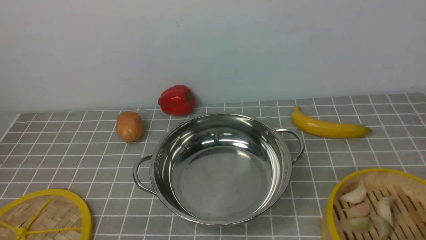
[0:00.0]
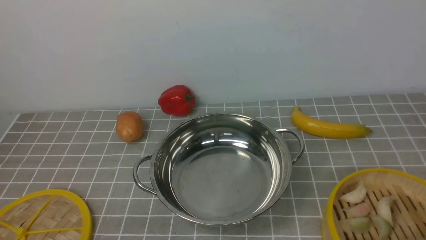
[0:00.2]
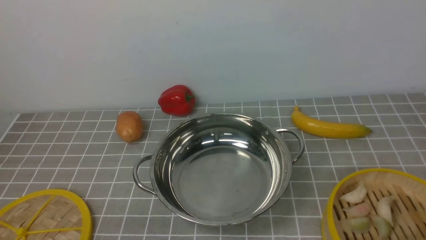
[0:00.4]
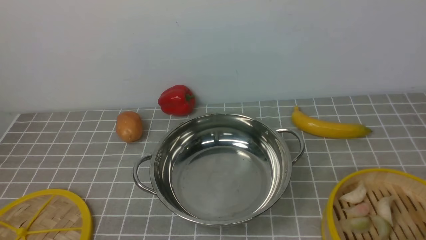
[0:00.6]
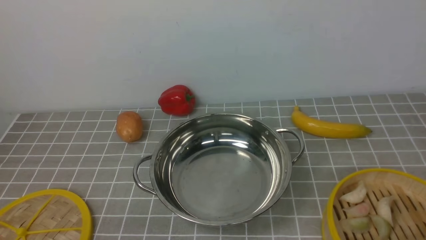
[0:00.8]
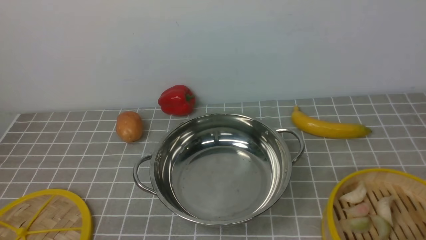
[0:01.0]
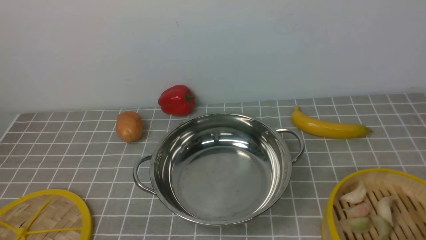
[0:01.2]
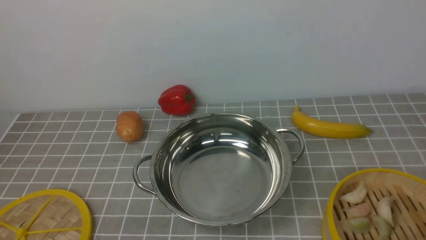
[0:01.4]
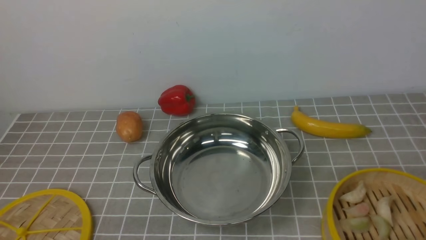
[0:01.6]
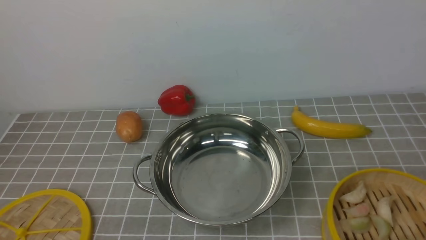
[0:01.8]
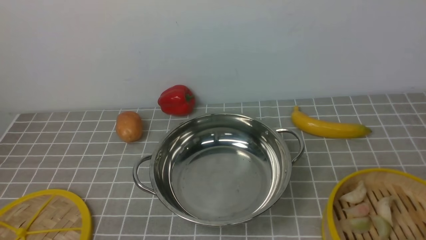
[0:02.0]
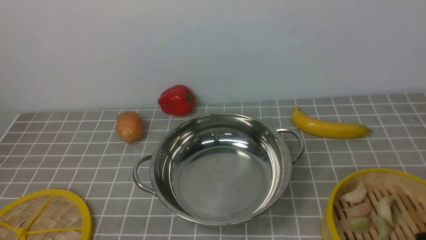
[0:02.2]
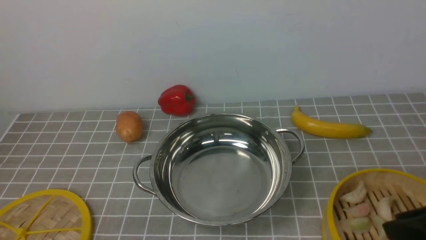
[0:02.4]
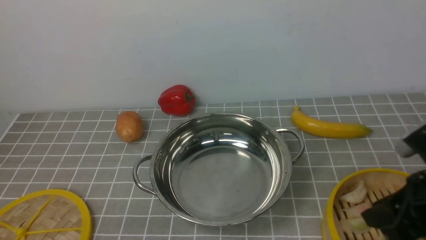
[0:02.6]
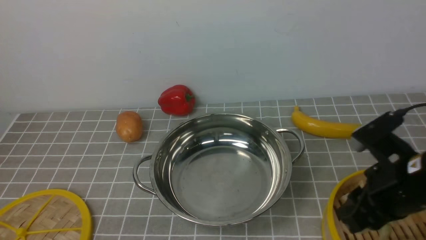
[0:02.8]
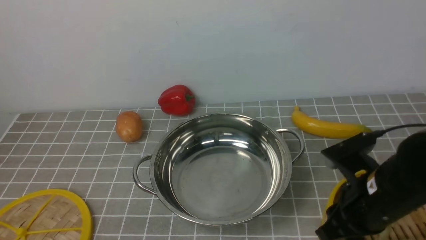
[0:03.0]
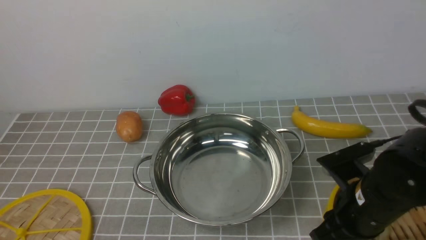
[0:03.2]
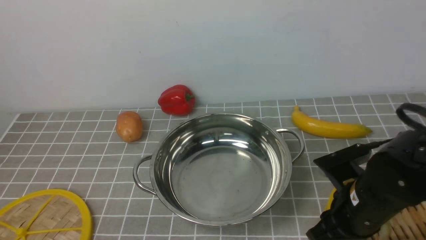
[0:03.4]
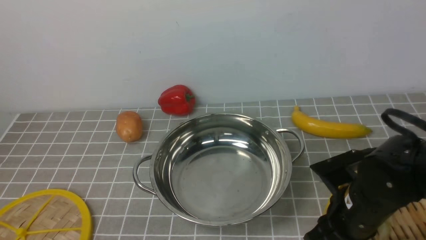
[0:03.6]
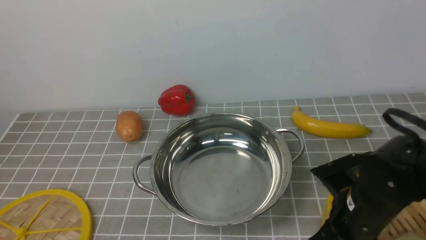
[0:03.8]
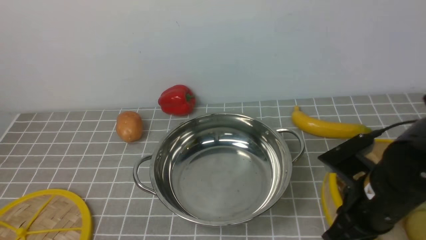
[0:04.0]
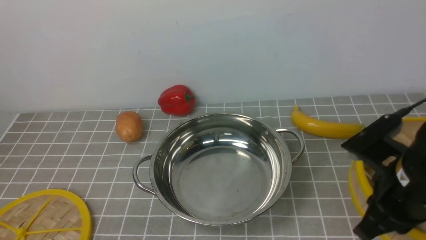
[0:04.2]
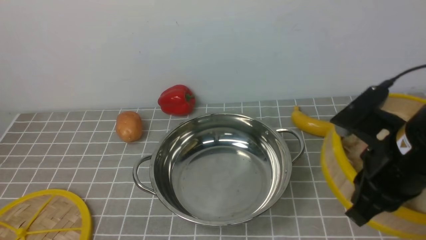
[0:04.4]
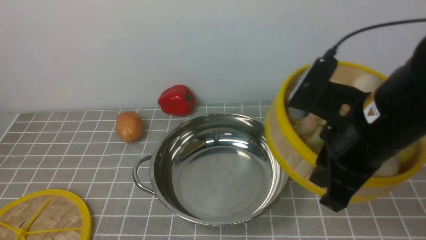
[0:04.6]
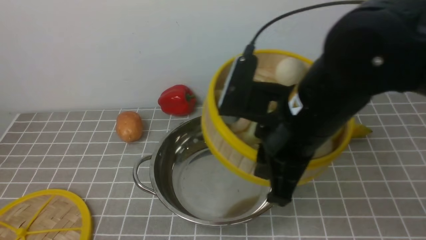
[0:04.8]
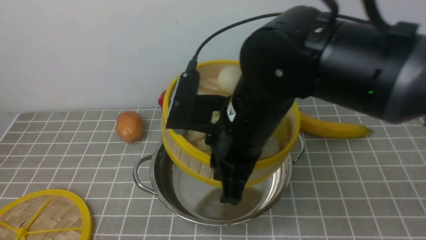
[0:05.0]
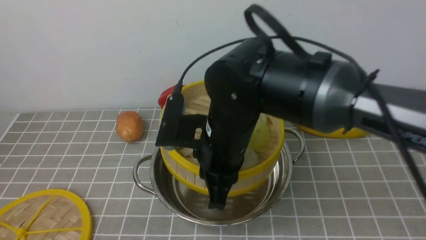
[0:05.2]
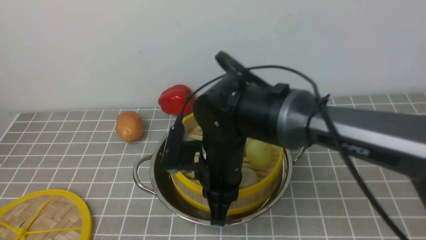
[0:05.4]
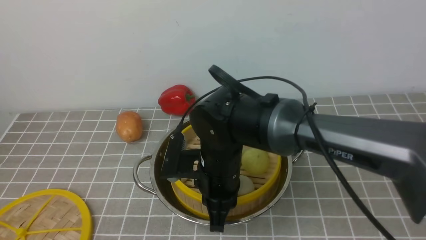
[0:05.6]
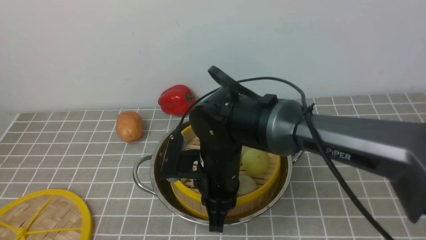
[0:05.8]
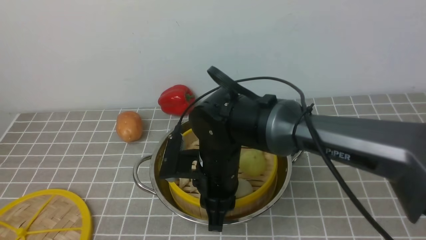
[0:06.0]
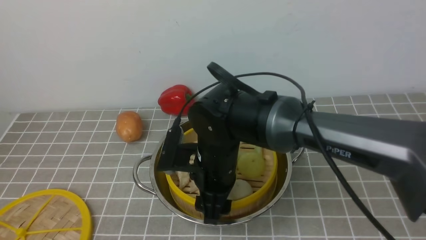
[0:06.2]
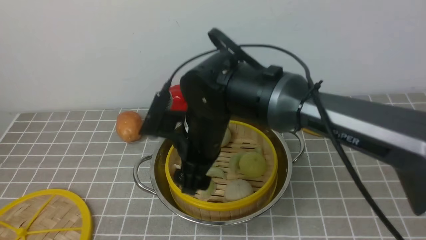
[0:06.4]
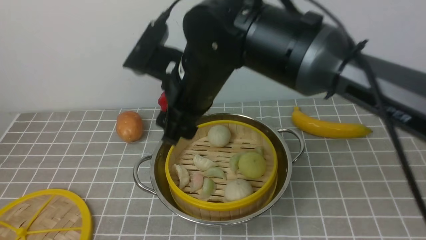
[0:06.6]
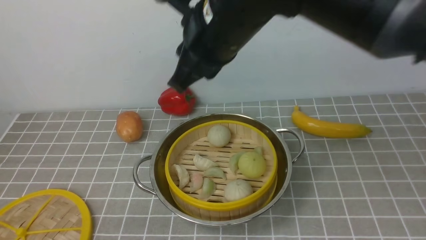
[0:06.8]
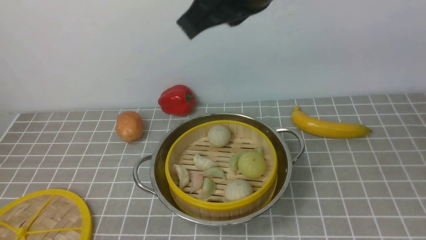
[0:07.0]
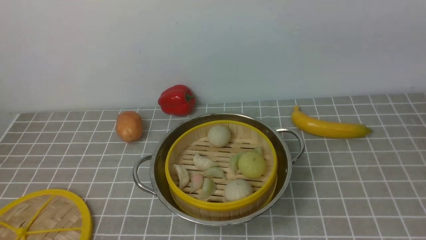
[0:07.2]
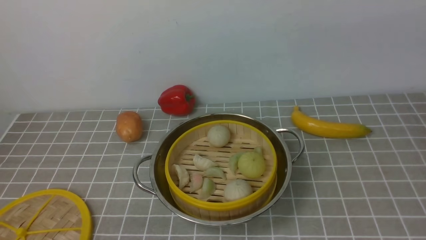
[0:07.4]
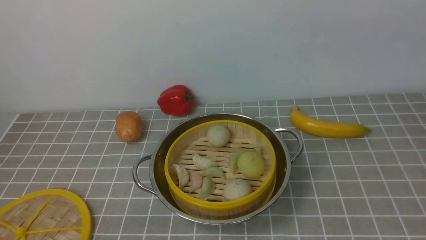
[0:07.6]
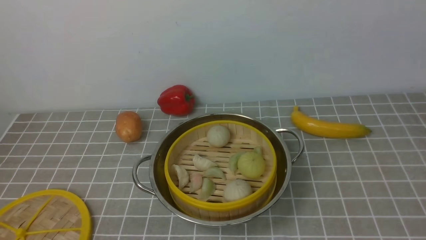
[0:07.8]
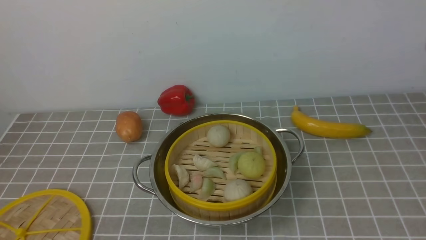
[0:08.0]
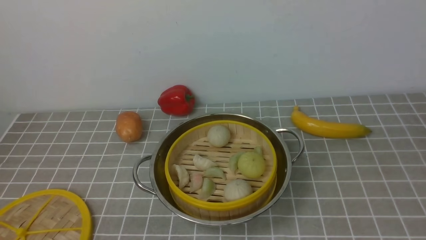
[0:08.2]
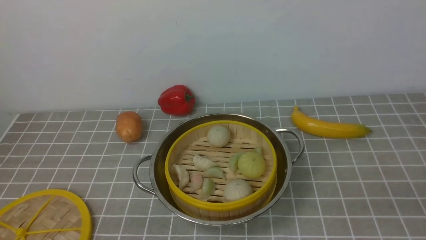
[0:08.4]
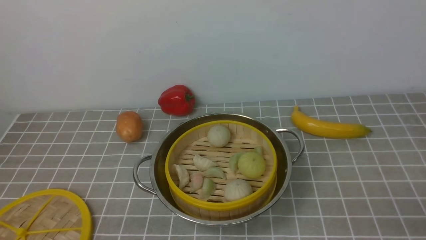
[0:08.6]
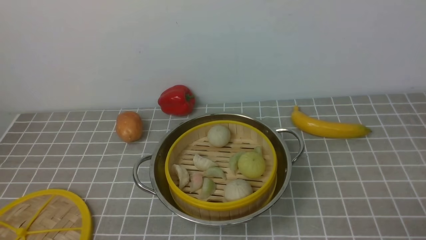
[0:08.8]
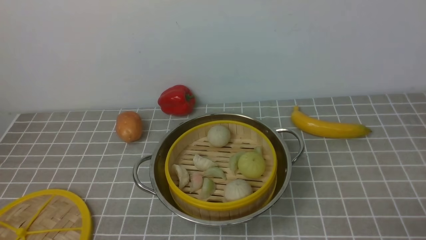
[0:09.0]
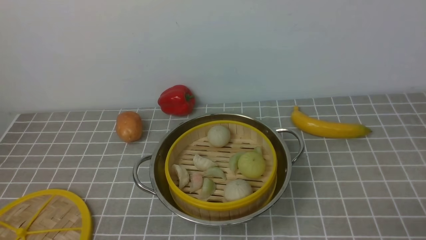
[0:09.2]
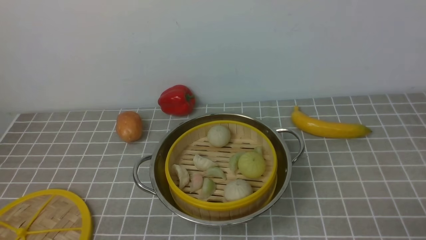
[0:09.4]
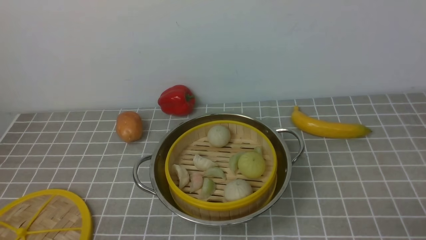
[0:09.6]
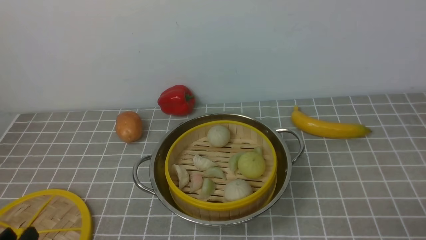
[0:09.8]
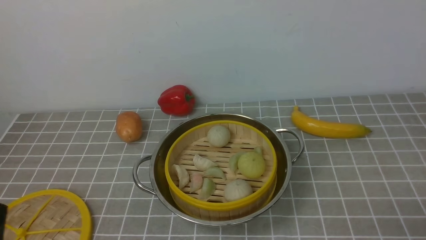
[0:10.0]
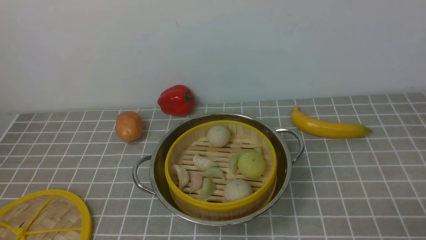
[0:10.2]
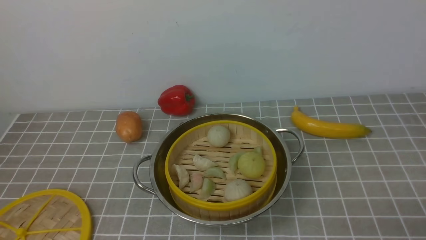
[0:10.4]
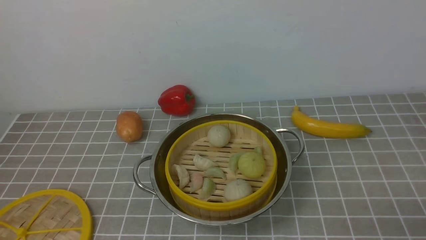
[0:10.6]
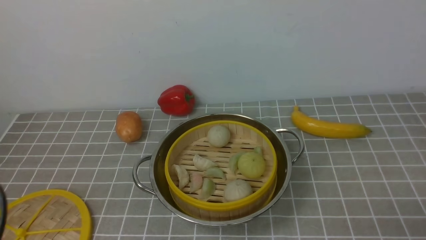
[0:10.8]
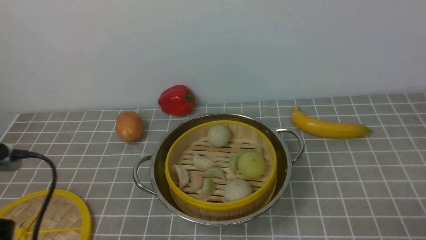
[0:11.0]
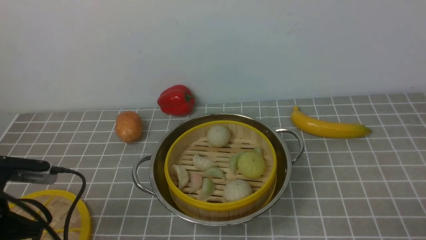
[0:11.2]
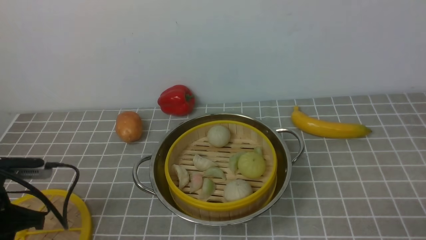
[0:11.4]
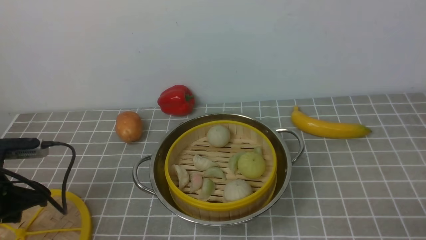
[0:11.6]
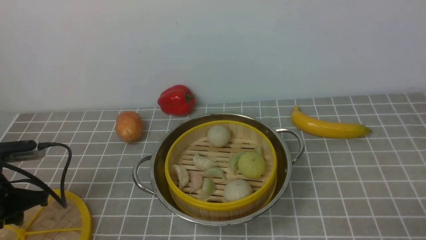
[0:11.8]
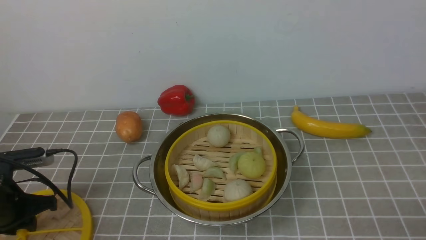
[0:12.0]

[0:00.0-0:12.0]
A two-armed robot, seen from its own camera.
Task of the whole recording: place the steamer in the pot on the grey tablecloth, and put the lid on the steamer.
Step, 0:00.0 to 0:03.8: use the right arm to lift the steamer closest to it.
Step, 0:04.0 to 0:06.2: use the right arm to put the steamer into the iron steamer pot in the middle.
0:01.6 to 0:03.0: The right gripper shifts approximately 20 cm forward and to the left.
0:03.0 to 0:04.4: The right gripper goes about 10 cm upward, and closes.
0:04.4 to 0:06.0: The right gripper is displaced to the left, downward and forward by roughly 25 cm, and opens up.
0:06.0 to 0:07.6: The right gripper is displaced upward and to the right by some 35 cm, and closes.
0:10.4 to 0:12.0: The left gripper heads forward, downward and to the left, covering roughly 25 cm.

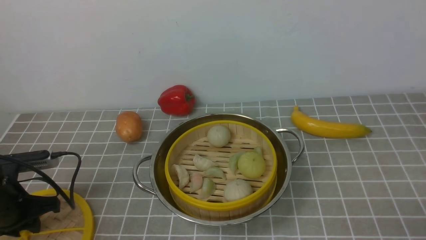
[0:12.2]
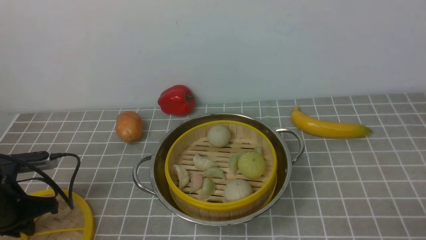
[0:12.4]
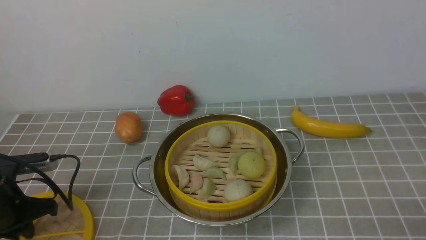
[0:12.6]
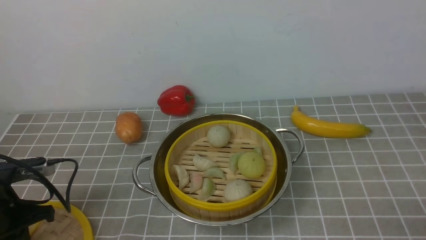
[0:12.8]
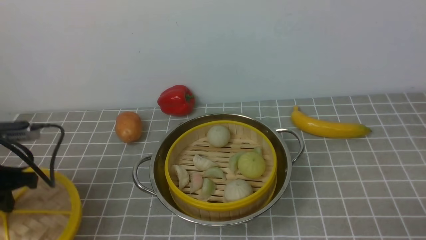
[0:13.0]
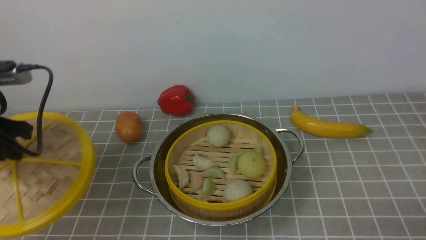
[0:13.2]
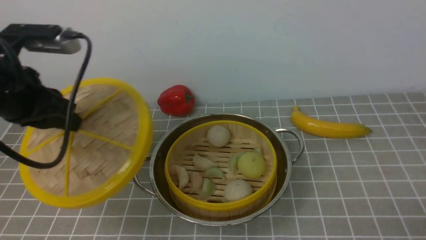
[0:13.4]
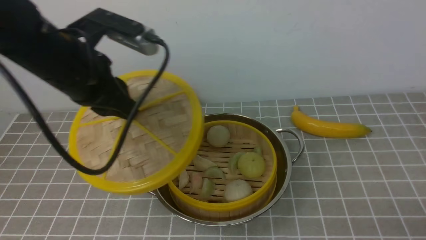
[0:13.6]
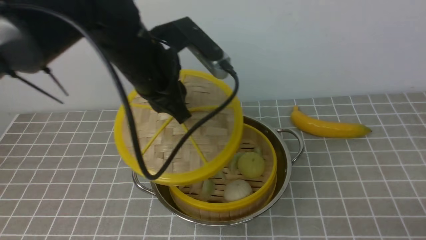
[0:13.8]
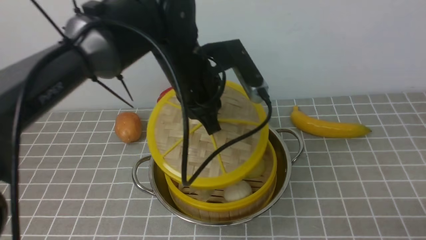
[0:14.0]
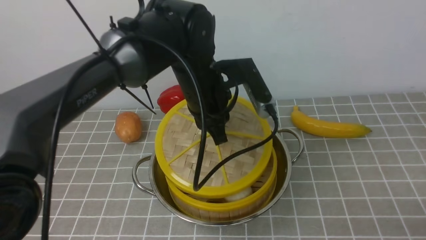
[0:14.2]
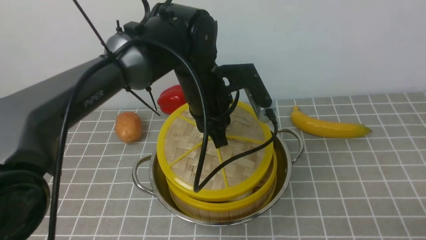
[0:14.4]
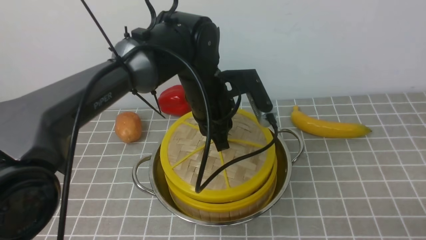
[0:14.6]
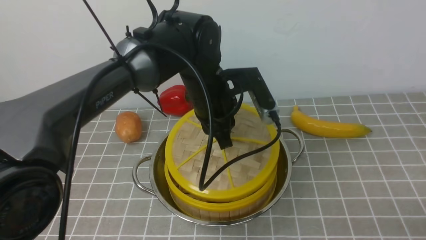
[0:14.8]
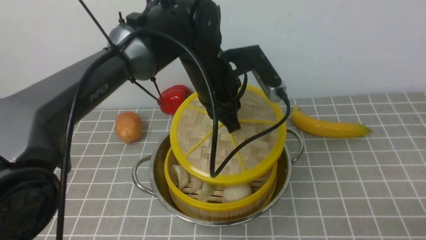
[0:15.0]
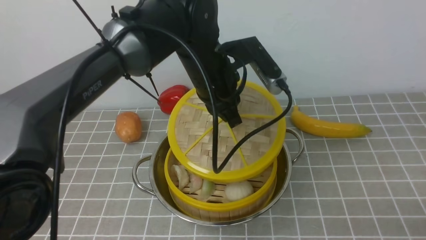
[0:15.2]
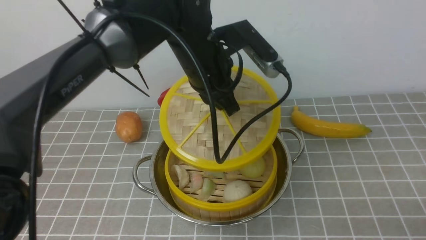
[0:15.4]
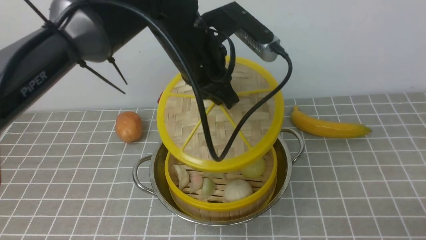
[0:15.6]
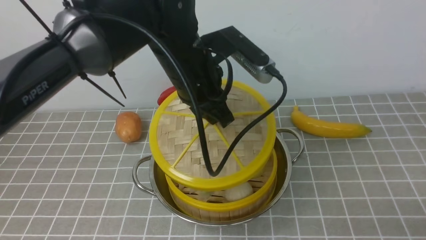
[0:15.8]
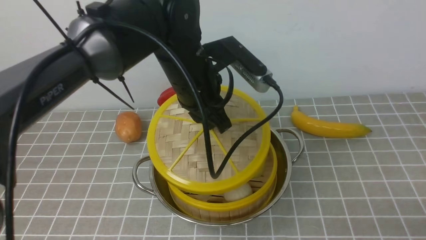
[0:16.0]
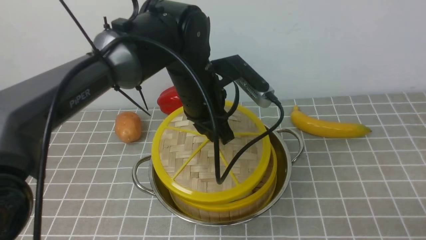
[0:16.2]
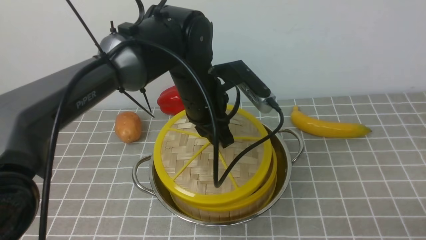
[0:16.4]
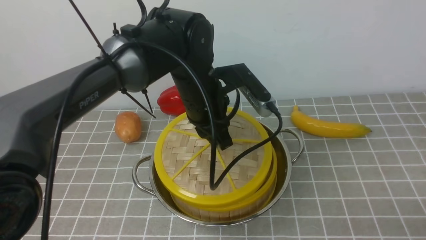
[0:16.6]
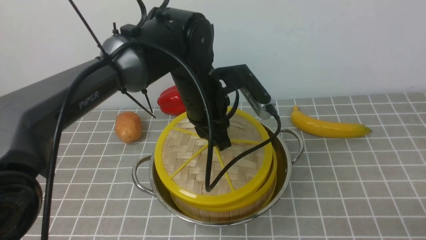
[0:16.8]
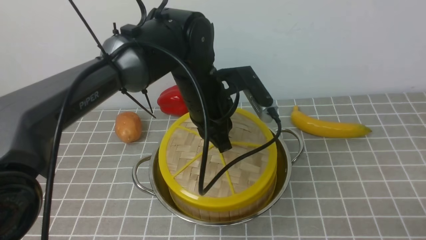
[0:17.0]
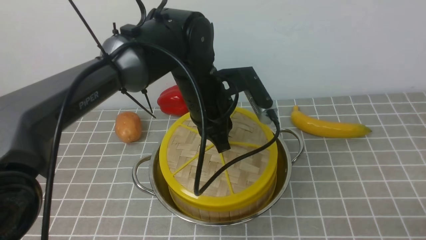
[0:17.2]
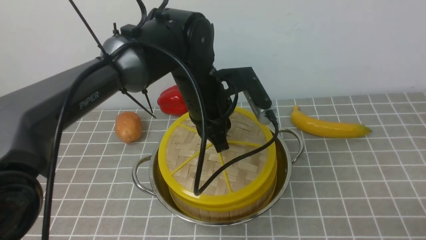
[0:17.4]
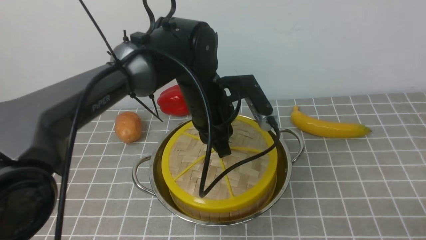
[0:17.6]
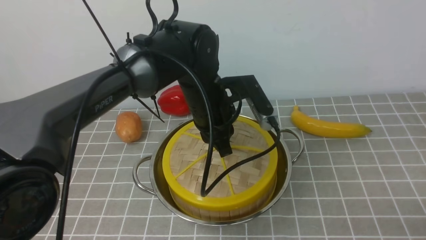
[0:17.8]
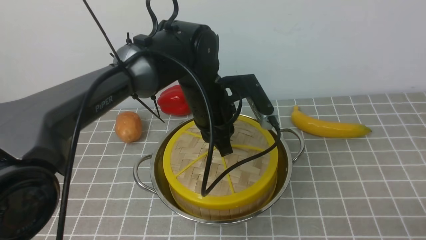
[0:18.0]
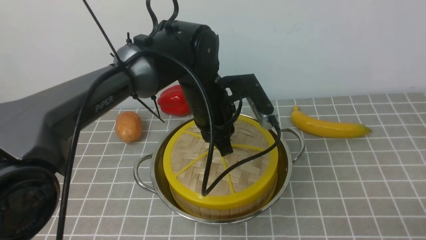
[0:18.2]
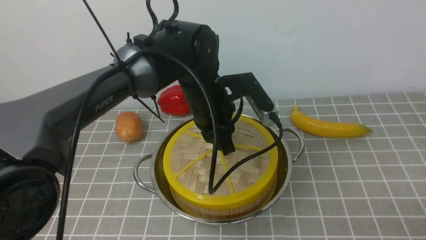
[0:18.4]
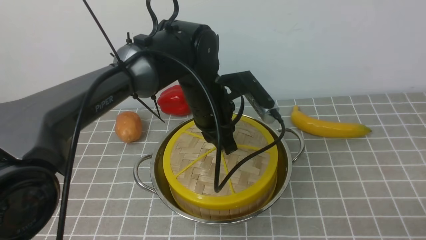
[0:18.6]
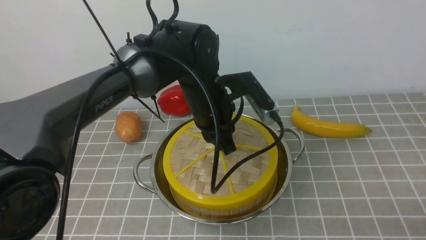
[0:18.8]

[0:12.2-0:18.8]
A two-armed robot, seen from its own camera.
Task of the whole recording: place the steamer in the pot on the grey tablecloth, and put the lid on the steamer.
0:12.2 to 0:13.8: The left gripper travels to the right and upward by roughly 30 cm.
0:13.8 to 0:15.4: The left gripper moves to the right, approximately 5 cm.
0:15.4 to 0:17.2: The left gripper travels downward by some 5 cm.
0:17.2 to 0:18.8: The grippers make only small movements.
